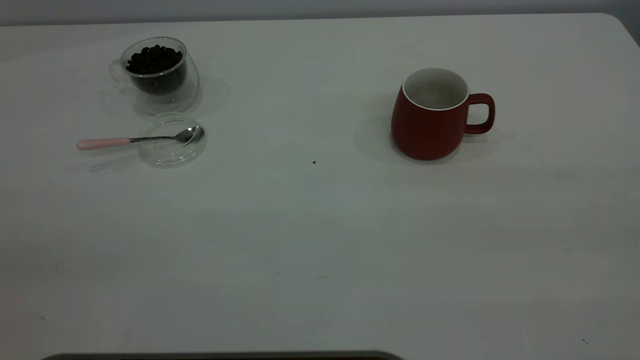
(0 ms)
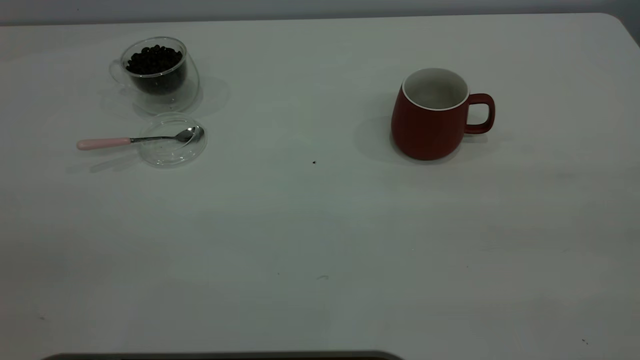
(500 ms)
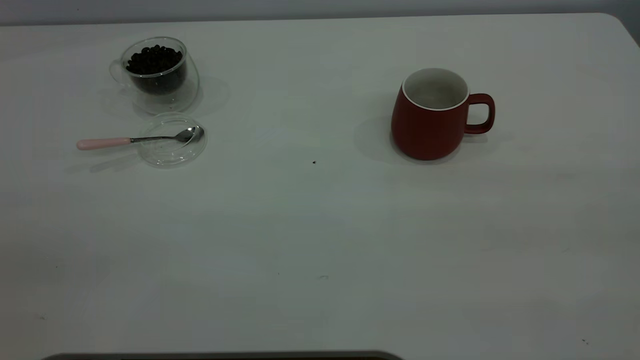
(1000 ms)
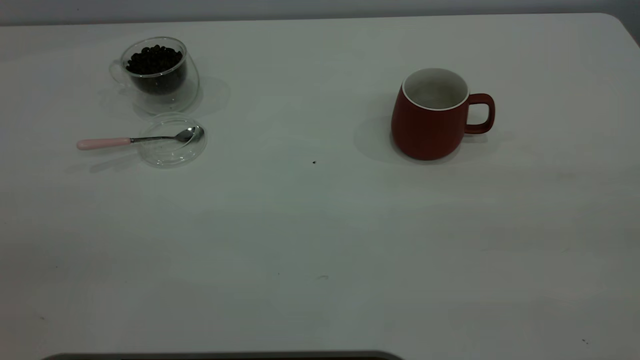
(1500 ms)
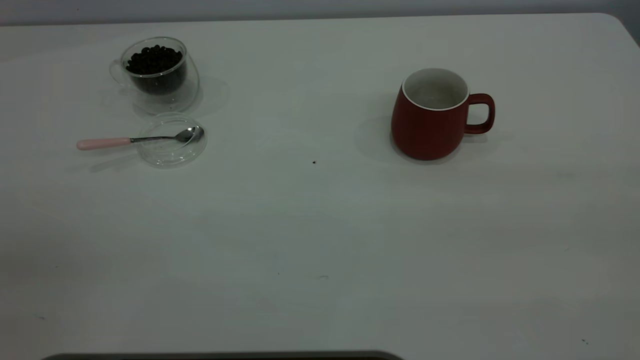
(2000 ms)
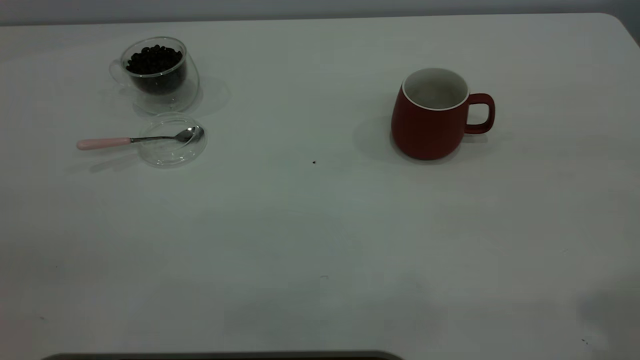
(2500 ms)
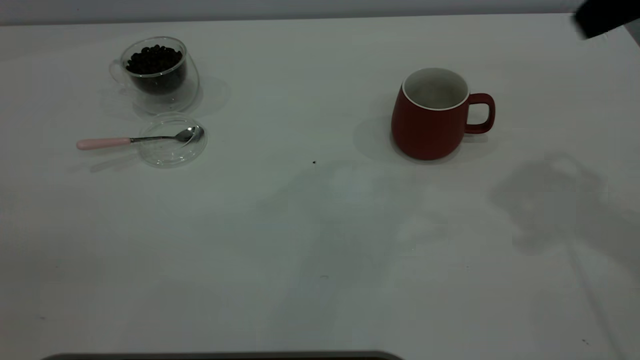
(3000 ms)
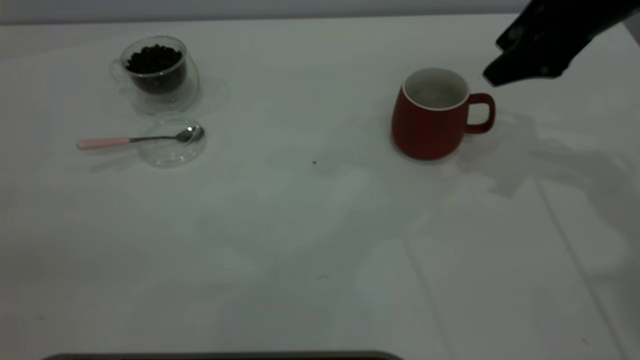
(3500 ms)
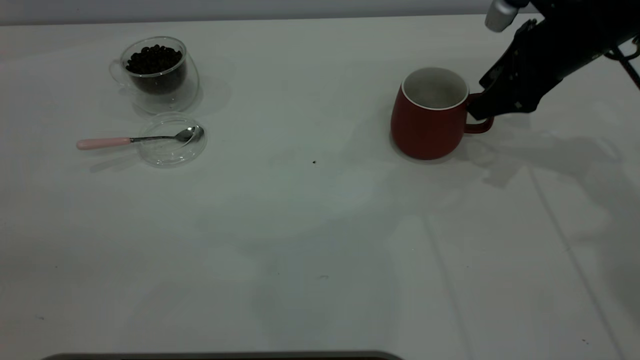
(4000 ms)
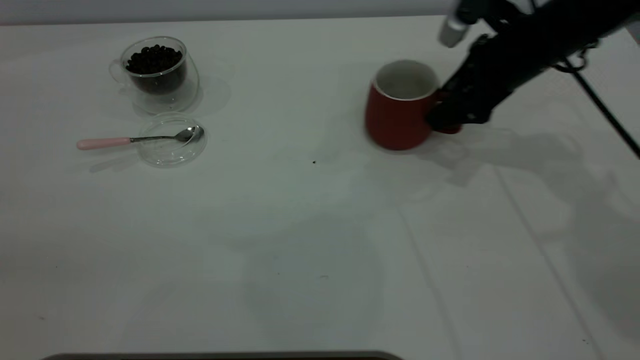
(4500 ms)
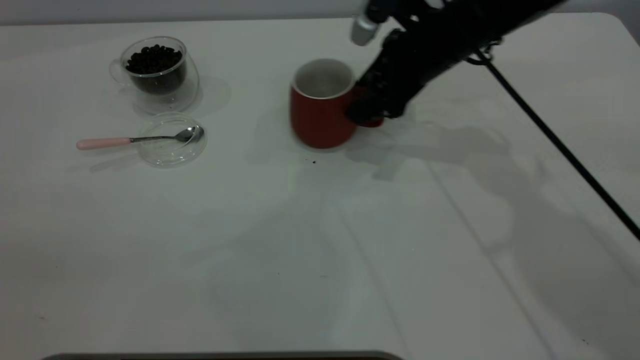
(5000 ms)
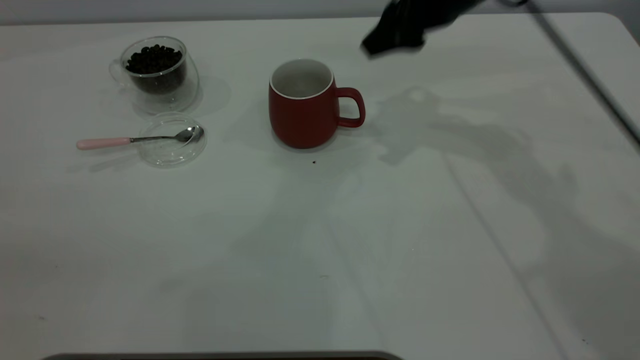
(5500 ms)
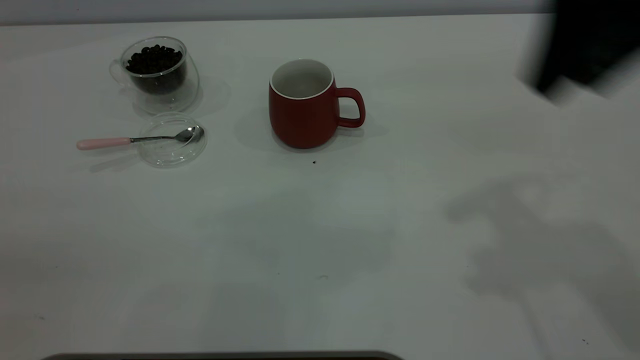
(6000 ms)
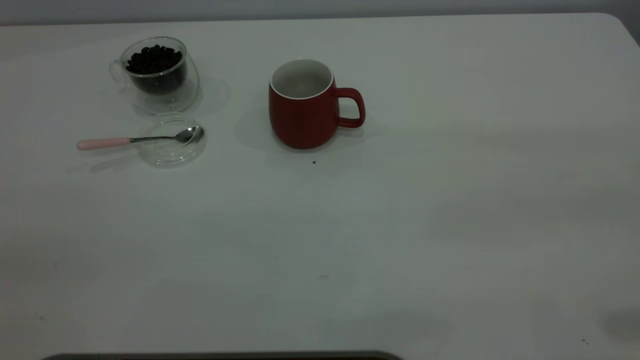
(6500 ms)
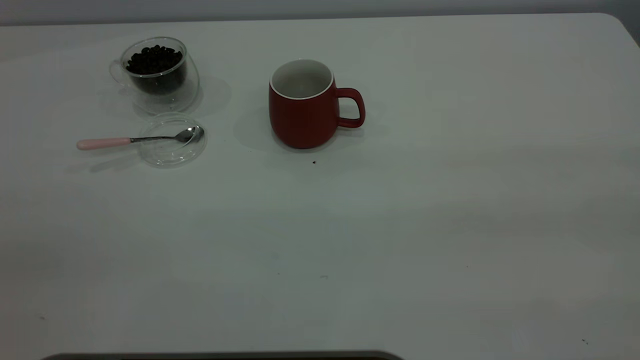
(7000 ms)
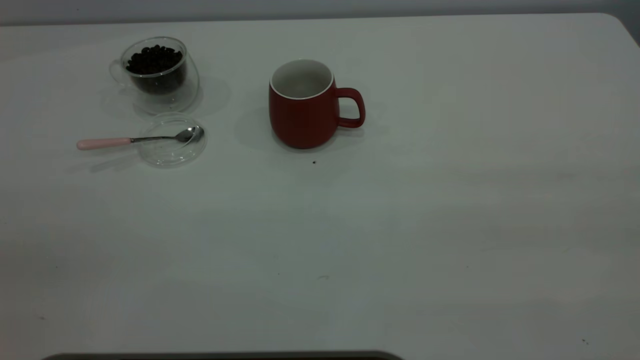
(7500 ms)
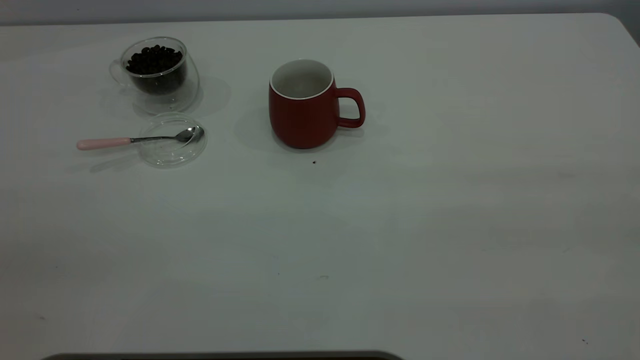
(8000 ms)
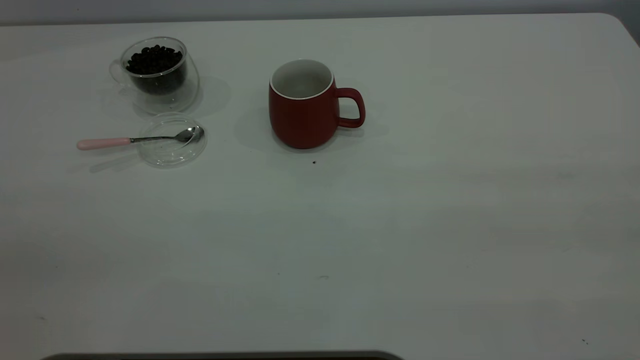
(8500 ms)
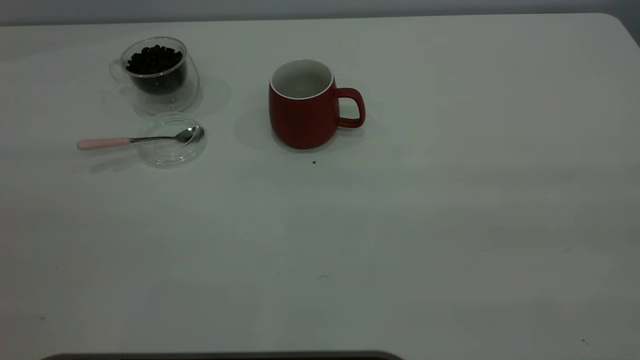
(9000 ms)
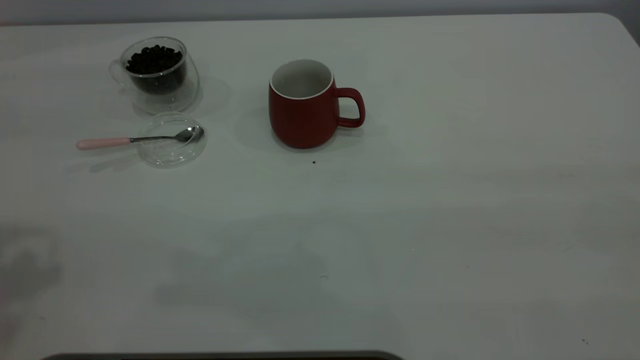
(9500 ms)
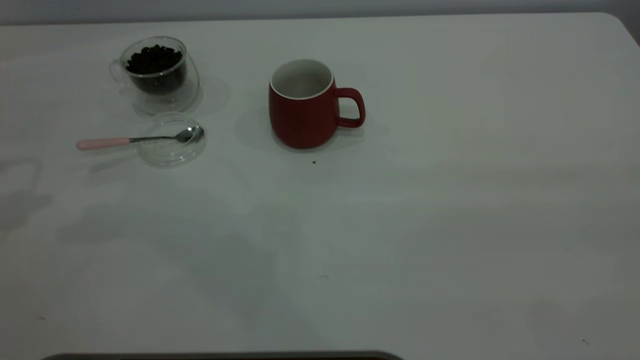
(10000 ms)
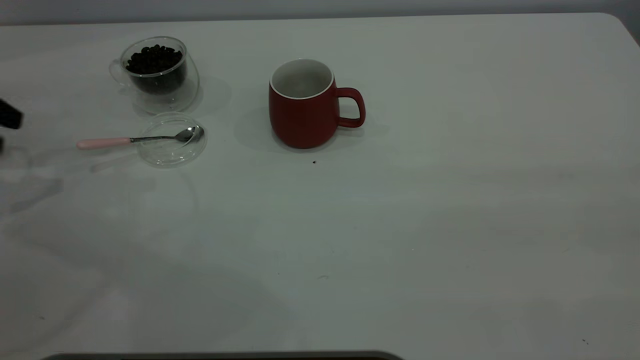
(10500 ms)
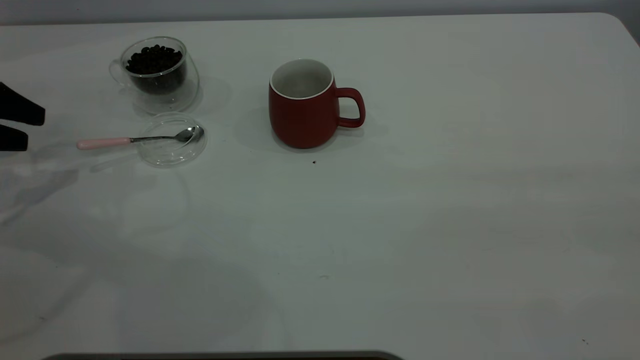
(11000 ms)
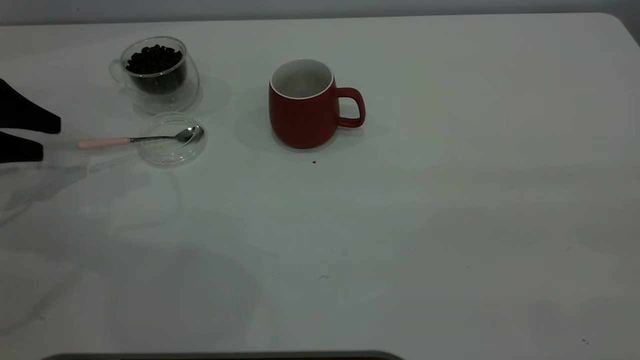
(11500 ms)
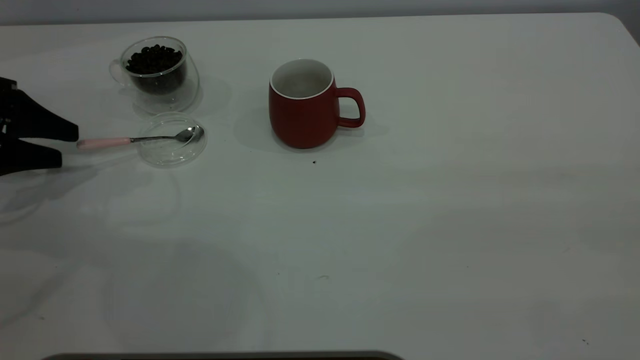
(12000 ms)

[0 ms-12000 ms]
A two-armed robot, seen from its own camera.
Task of the whole recording: the right gripper place the red cup in the center of the table, the left gripper take the pink spoon from the cup lid and scoop out the coffee beans from the coffee cup and put them into the red cup, the left gripper put the spoon back into the cup lid.
Step, 0 ms to 5000 ms: Move the cup to the center of view.
0 ms to 2000 ms: Both grippers stay about where they are.
2000 ms to 4000 ms: The right gripper moves forward and downward, roughly 50 cm.
4000 ms to 6000 ms: The right gripper is displaced upward and backward by roughly 25 cm.
6000 ms to 8000 ms: The right gripper is displaced backward by about 25 cm.
10000 ms to 12000 ms: The left gripper heads downward, covering approximately 15 cm.

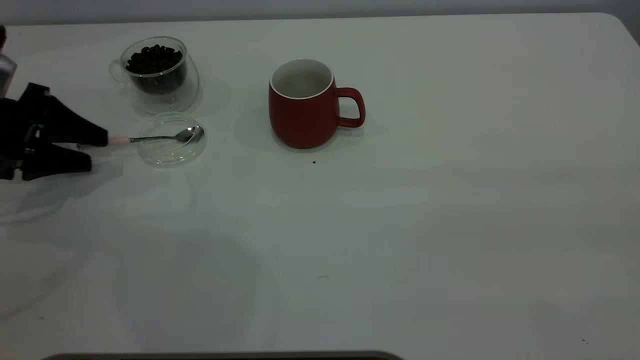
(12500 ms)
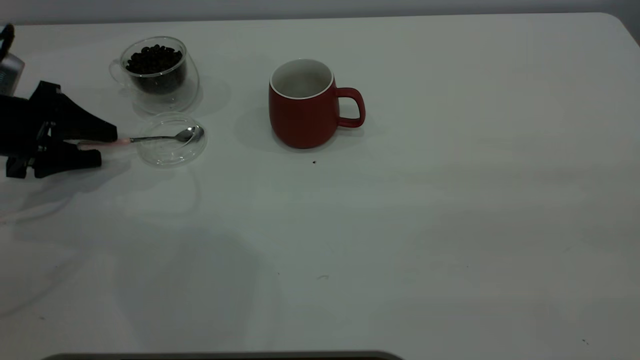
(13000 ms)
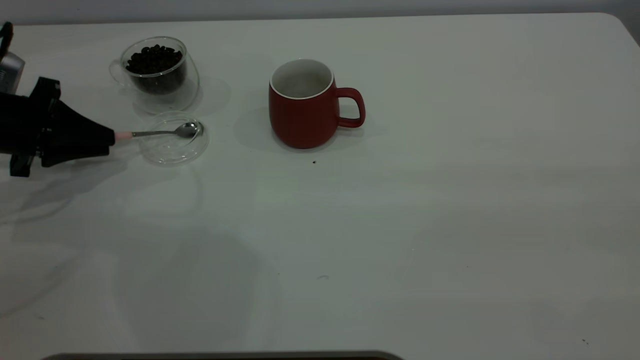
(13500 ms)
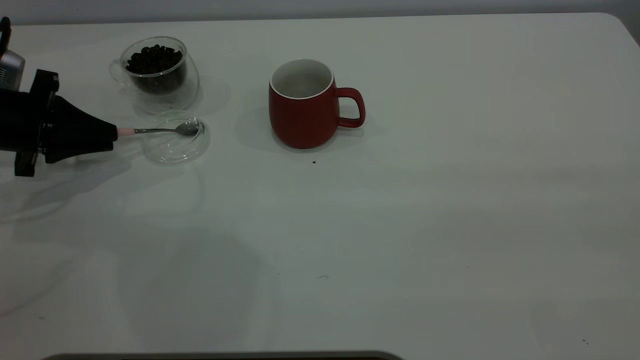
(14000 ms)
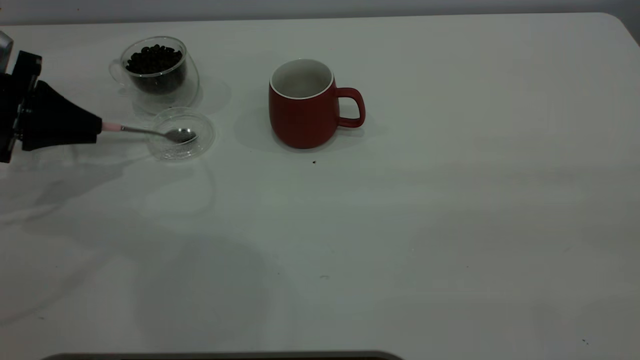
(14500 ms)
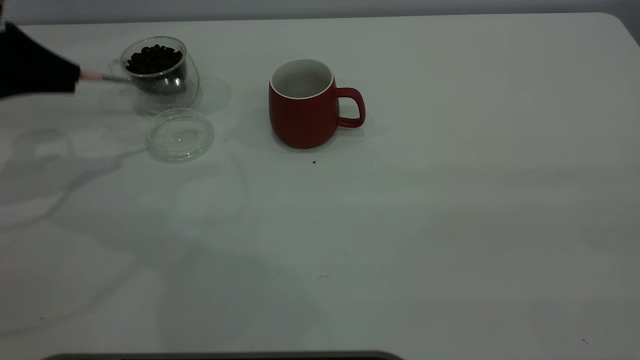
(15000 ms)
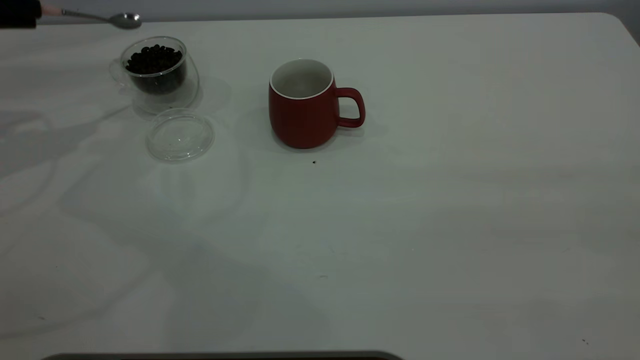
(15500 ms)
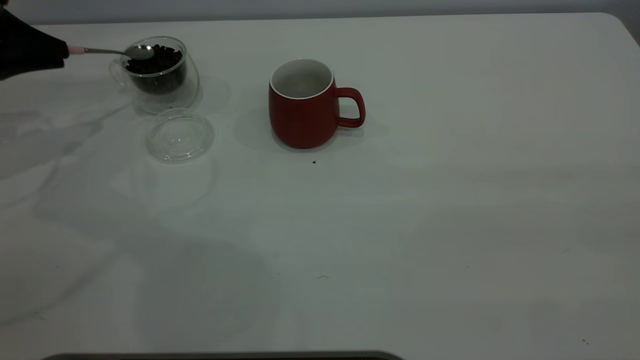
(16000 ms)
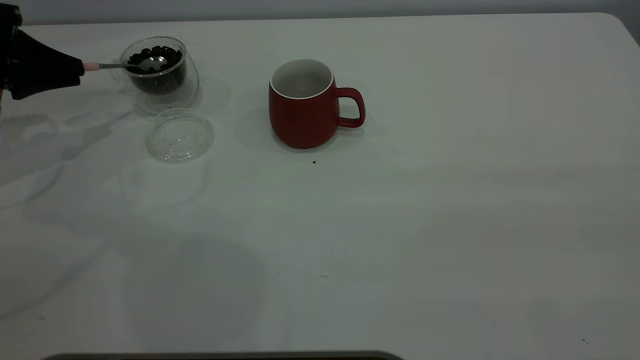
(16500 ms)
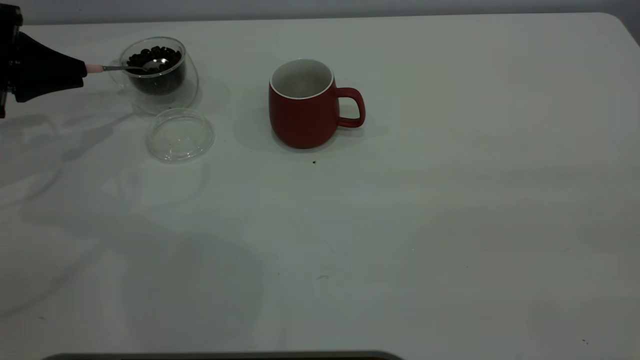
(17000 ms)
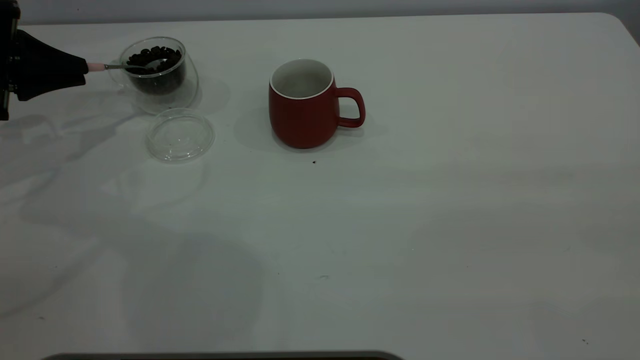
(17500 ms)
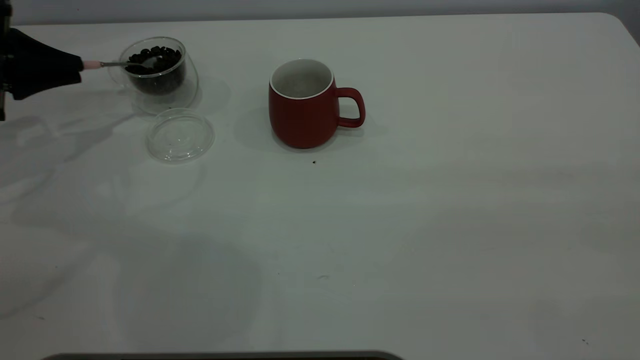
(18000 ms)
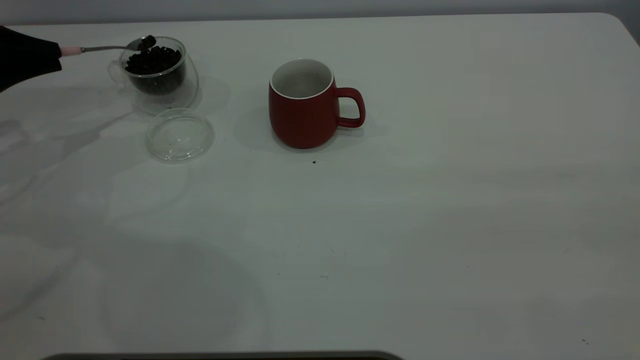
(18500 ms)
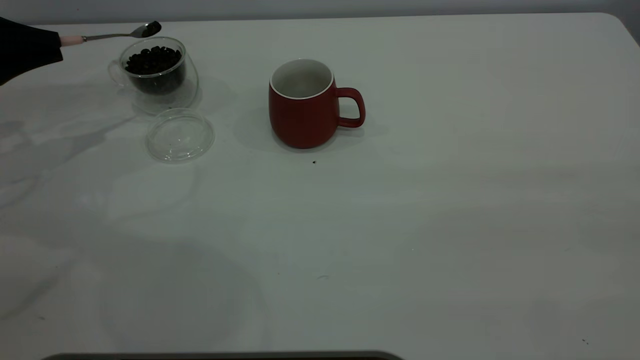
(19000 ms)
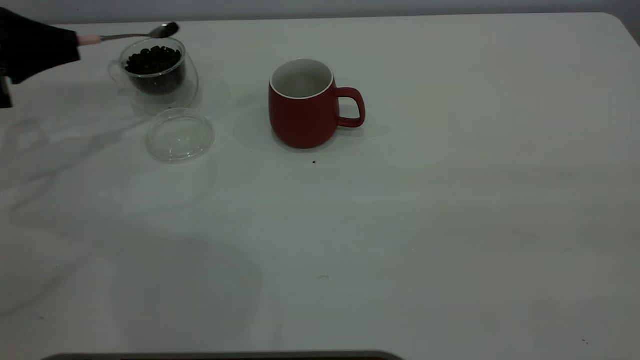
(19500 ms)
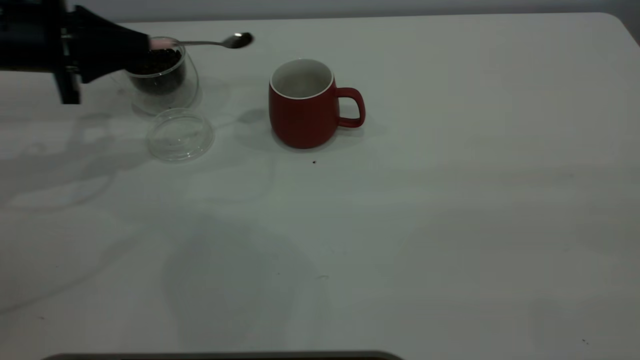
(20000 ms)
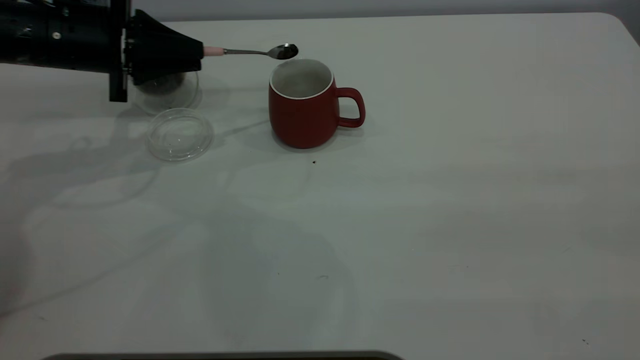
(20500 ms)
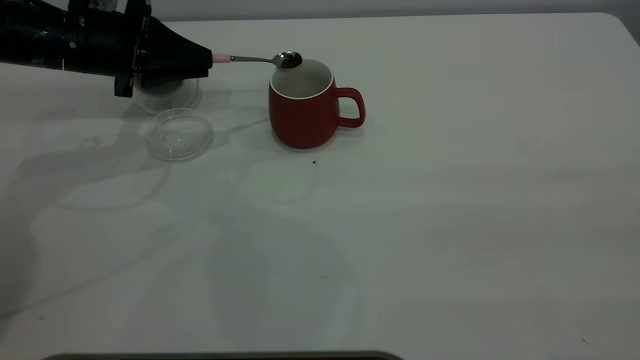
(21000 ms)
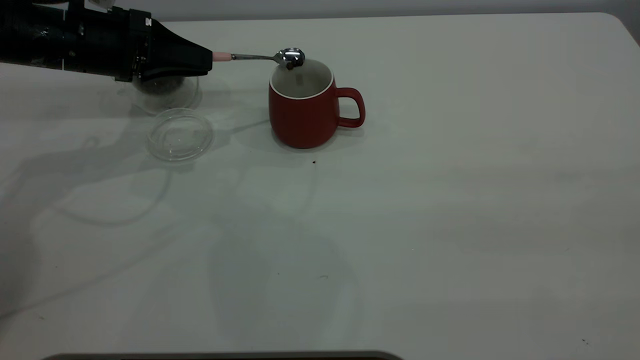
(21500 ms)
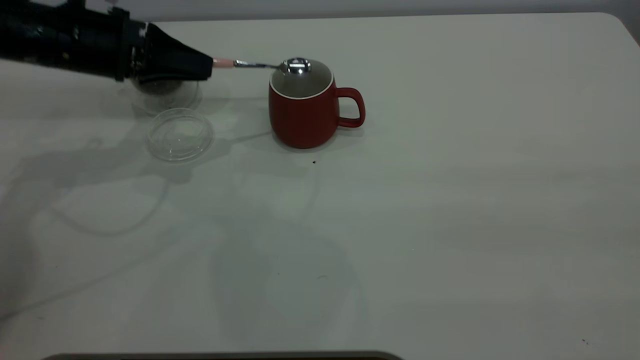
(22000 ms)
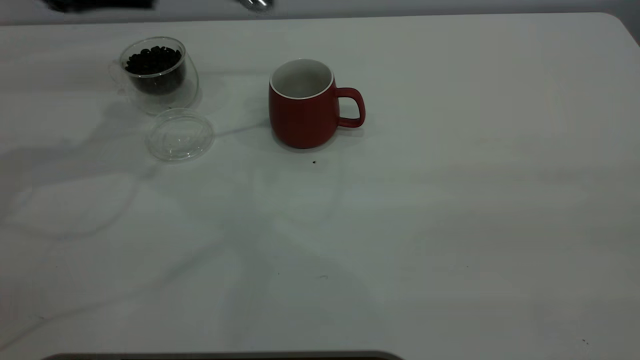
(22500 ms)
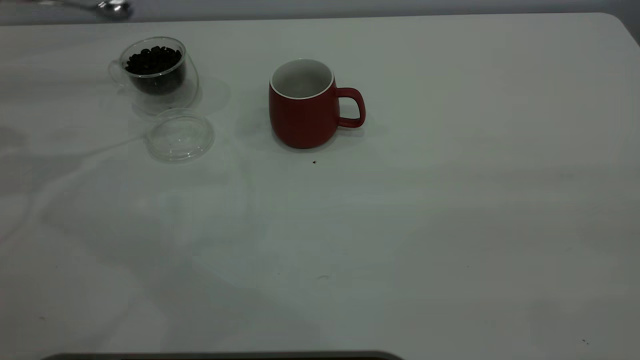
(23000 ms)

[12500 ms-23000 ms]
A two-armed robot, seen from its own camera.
Task of the whole recording: the right gripper place the red cup in the center of the table, the left gripper take the pink spoon from the cup lid and scoop out the coffee beans from the coffee cup and put them into the red cup, the left gripper put the spoon back into the cup lid.
Step, 12500 ms to 15000 ms: Pick up the spoon.
Step, 15500 ms to 22000 ms: Scoop a spoonful of beans into the cup.
12500 ms to 14500 ms: The left gripper closes its fingers.
14500 ms to 16500 ms: The left gripper travels upward and back again, about 10 cm each way.
16500 ms to 19000 ms: The grippers stay close to where they were, moving slightly.
19000 ms to 21000 ms: The left gripper shifts about 15 cm to the right.
21000 ms to 23000 ms: The left gripper heads to the left and upward, covering roughly 20 cm.
